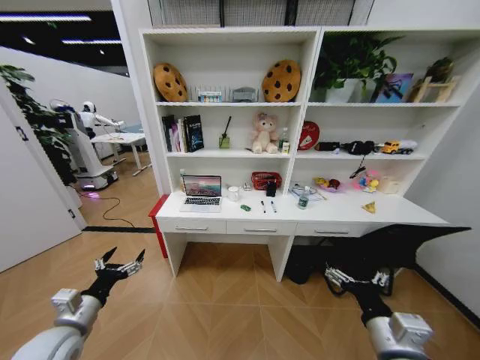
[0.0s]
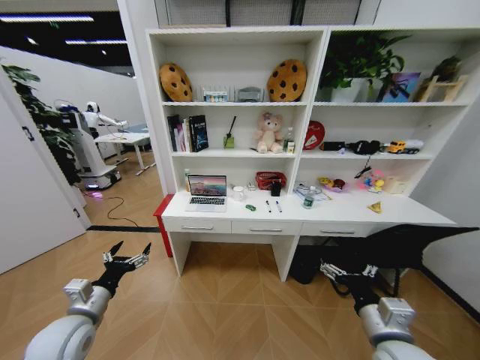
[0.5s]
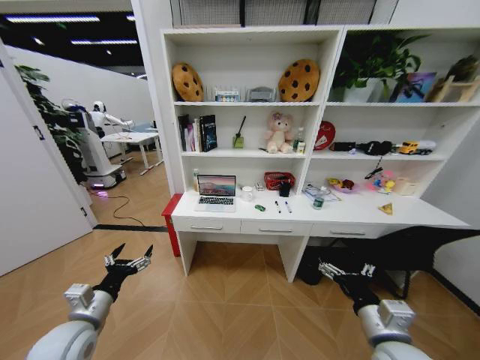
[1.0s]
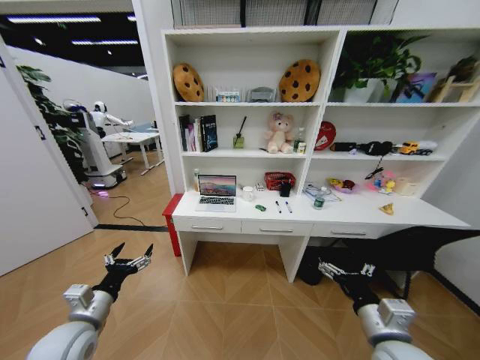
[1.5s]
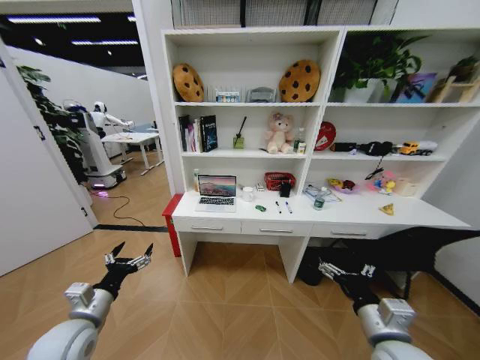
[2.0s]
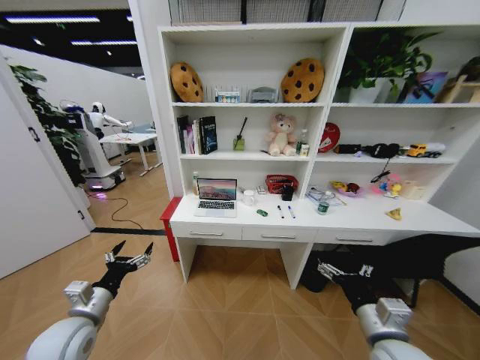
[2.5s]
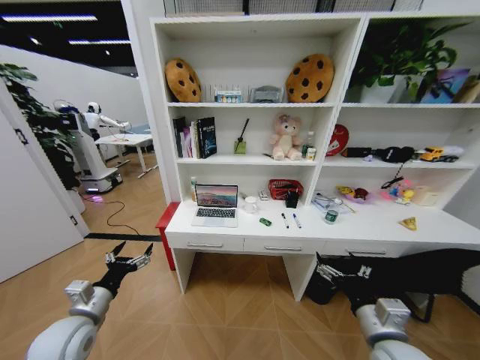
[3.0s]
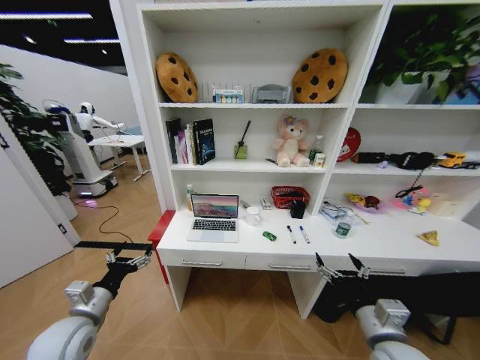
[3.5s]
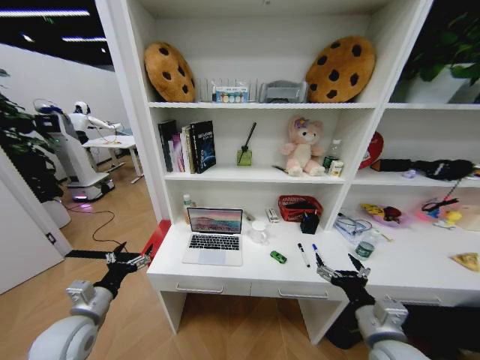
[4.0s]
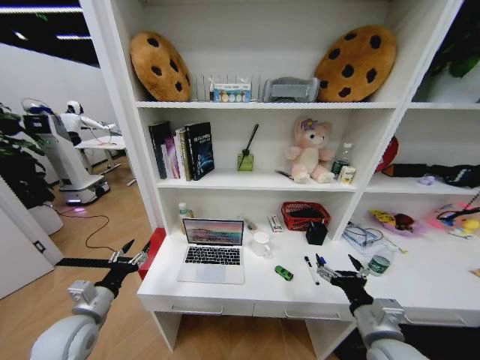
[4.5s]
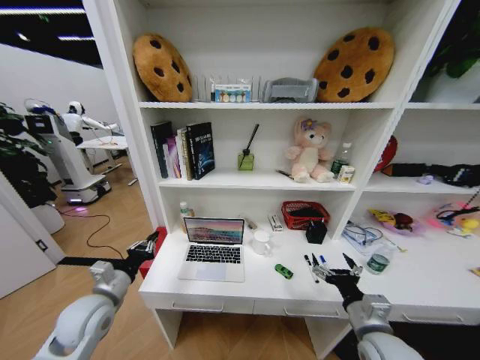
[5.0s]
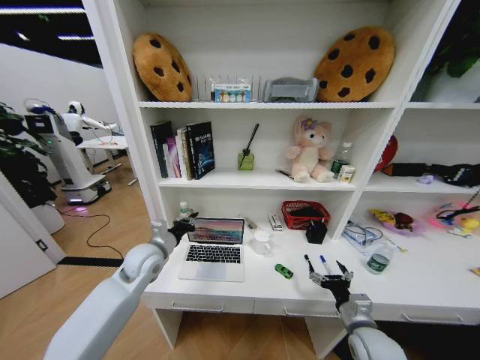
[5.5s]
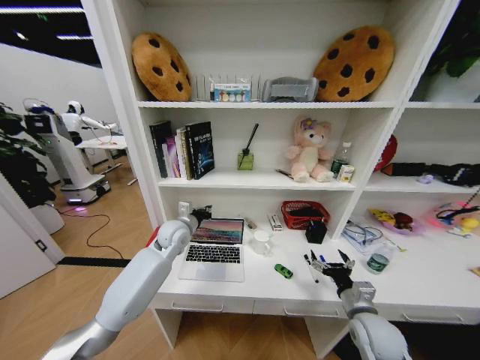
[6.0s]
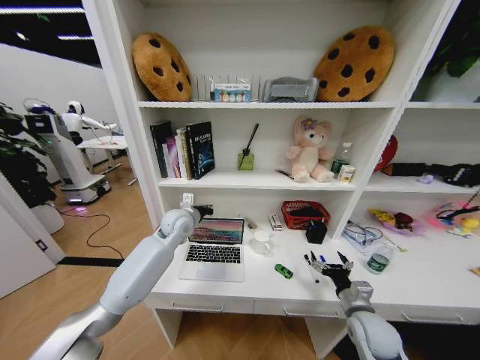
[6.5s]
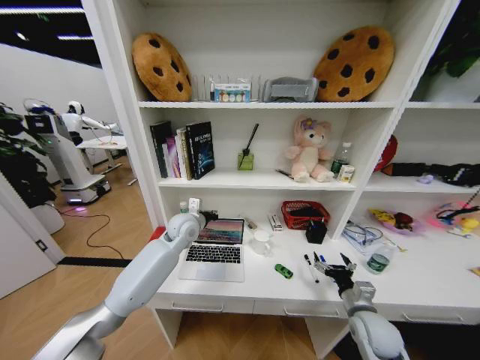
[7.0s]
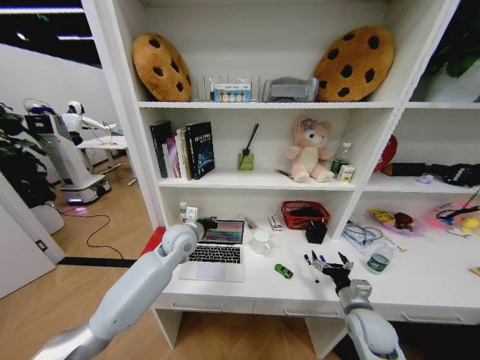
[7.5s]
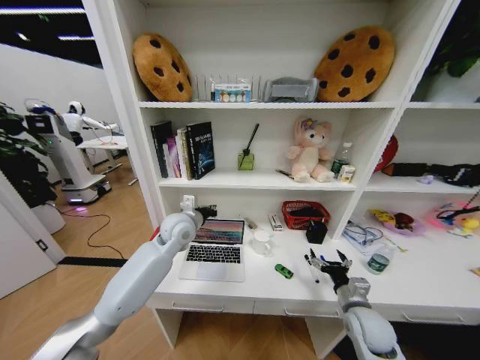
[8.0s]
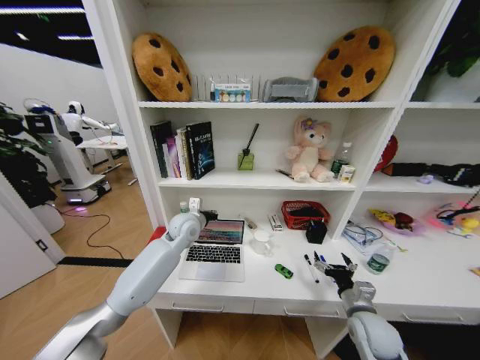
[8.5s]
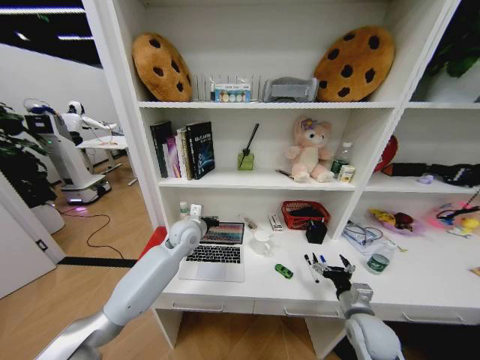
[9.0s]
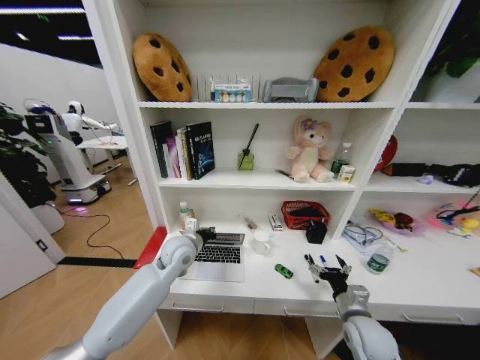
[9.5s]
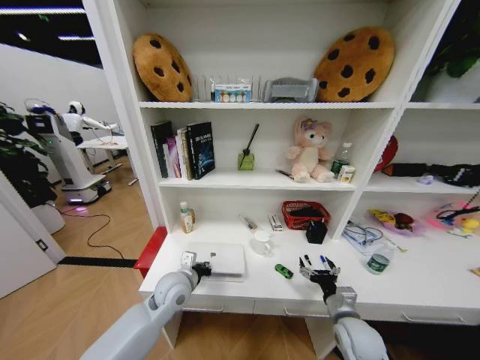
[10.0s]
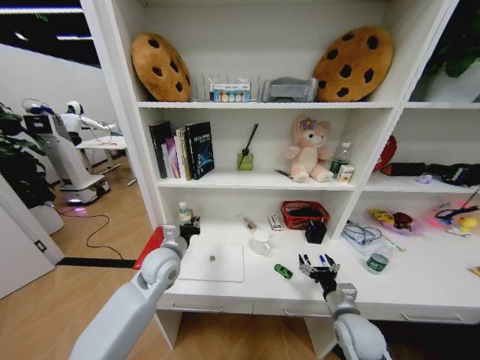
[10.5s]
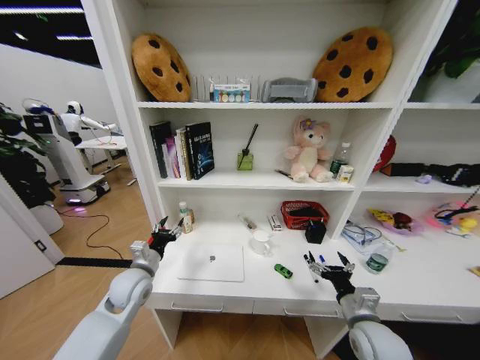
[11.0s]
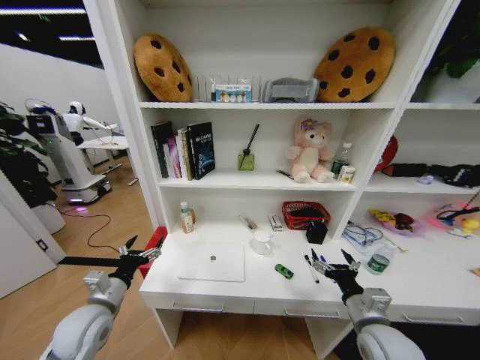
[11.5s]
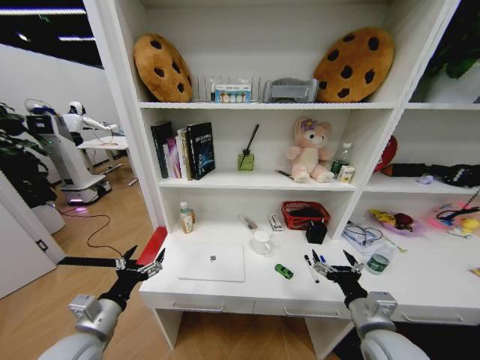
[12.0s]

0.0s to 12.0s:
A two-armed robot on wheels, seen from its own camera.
Task of the whole recording: Organize the objects on the table.
4.0s to 6.0s: The left gripper travels forward and to the right by some 30 cm, and closes up; the right gripper is displaced downward and forward by approximately 10 cm.
6.0s to 8.0s: The left gripper moves approximately 5 cm.
8.0s to 10.0s: The left gripper is displaced backward and downward by roughly 15 cm.
10.0s to 12.0s: The right gripper travels upward by about 10 cm. The left gripper is displaced to the left and backward by about 20 cm, and opens its fingers.

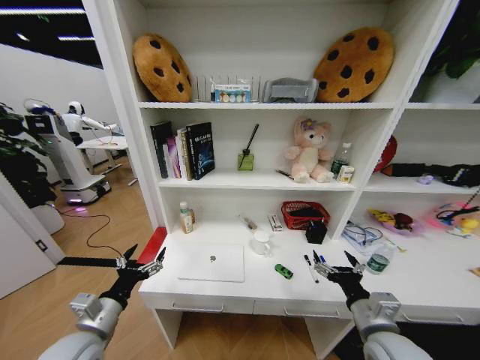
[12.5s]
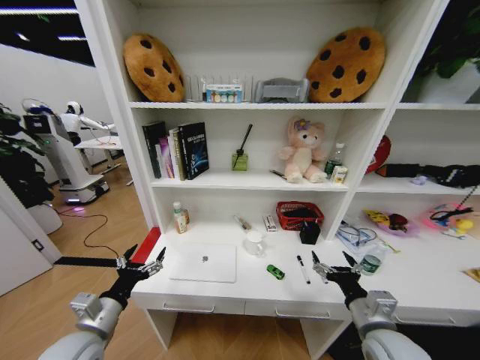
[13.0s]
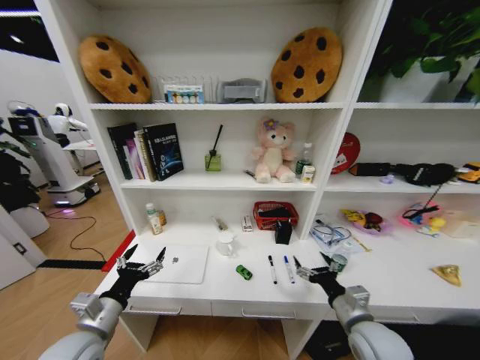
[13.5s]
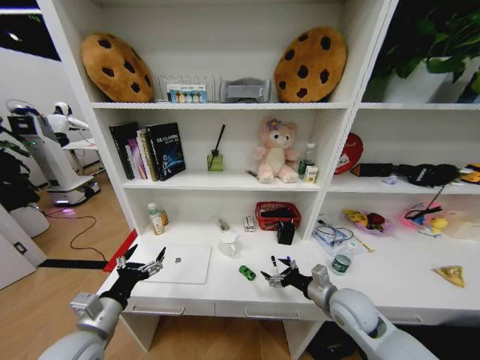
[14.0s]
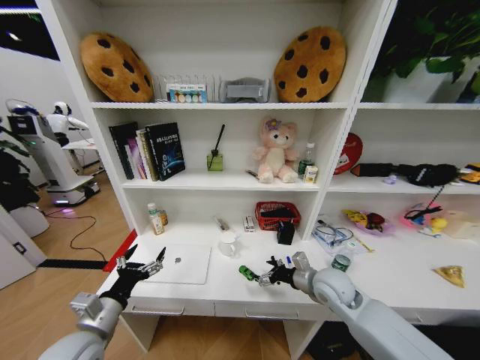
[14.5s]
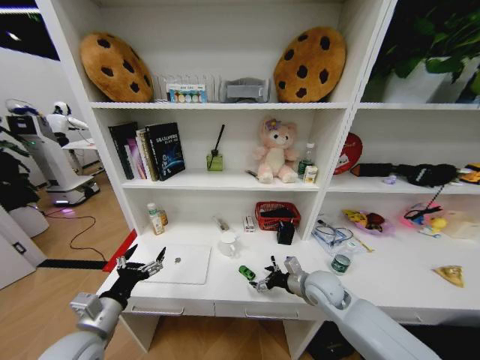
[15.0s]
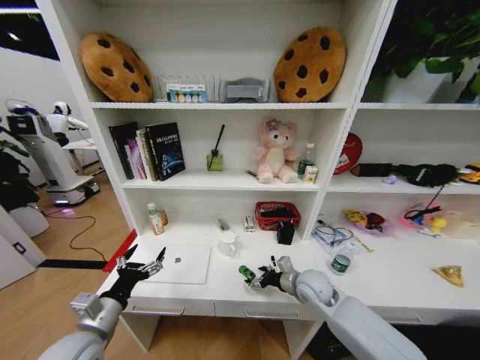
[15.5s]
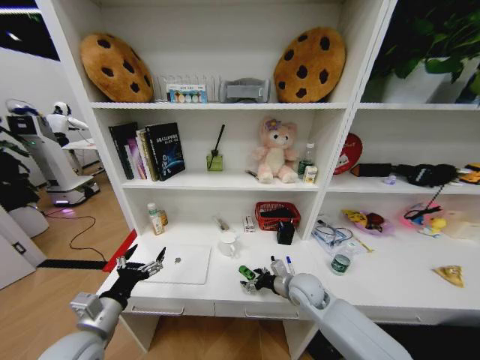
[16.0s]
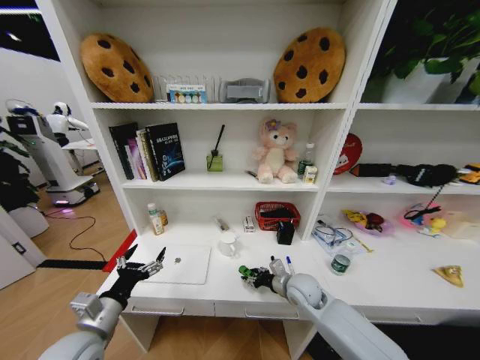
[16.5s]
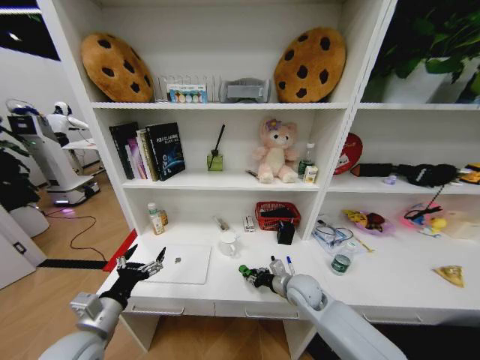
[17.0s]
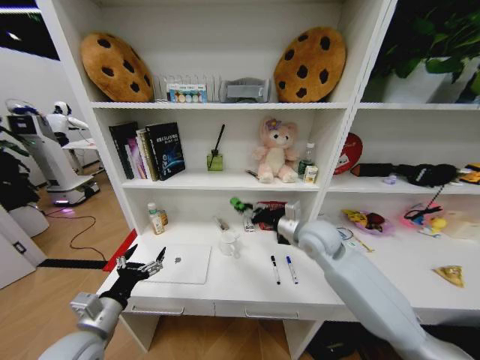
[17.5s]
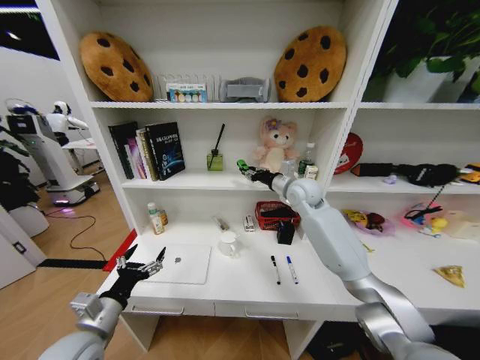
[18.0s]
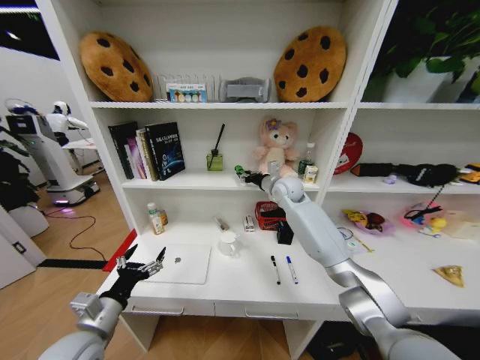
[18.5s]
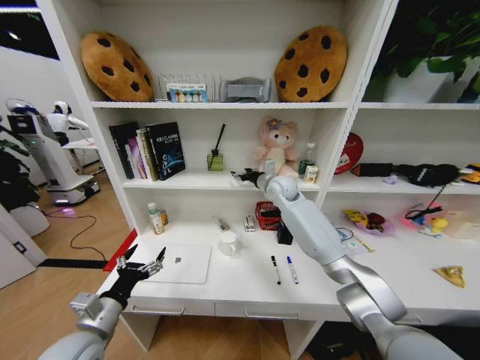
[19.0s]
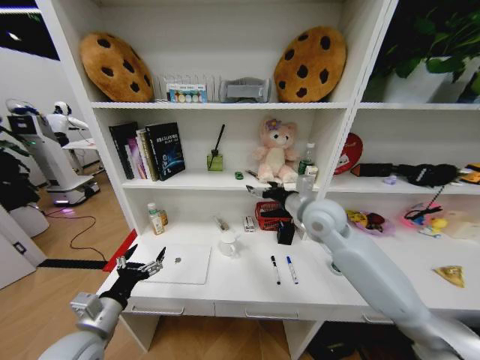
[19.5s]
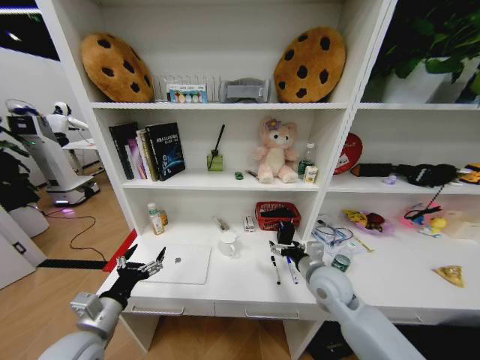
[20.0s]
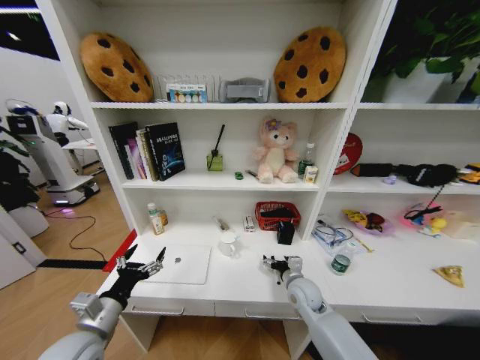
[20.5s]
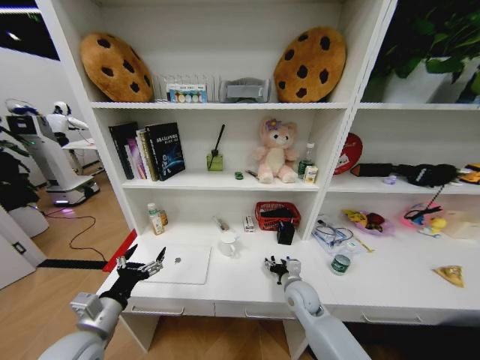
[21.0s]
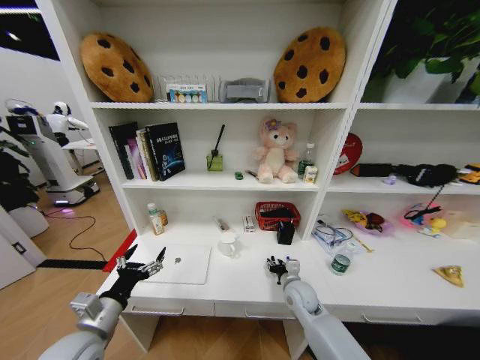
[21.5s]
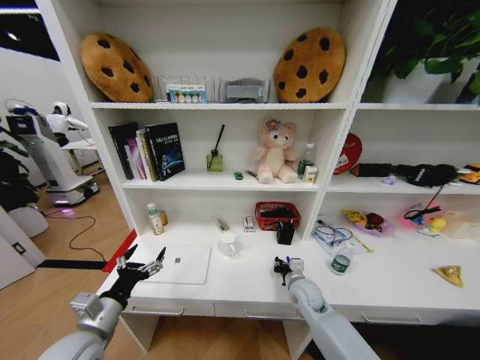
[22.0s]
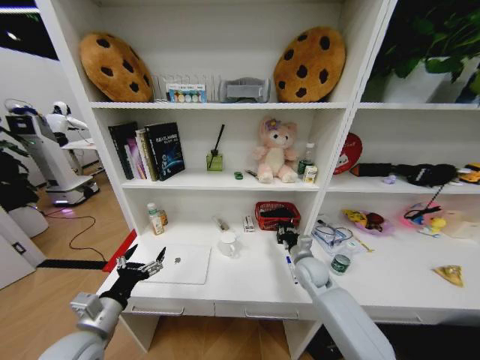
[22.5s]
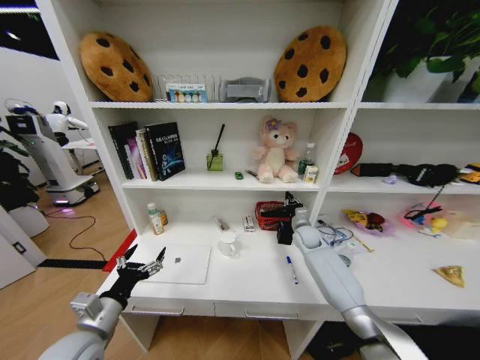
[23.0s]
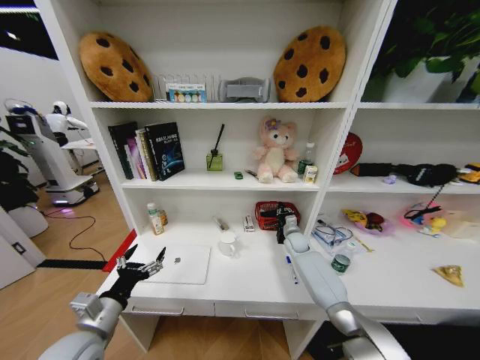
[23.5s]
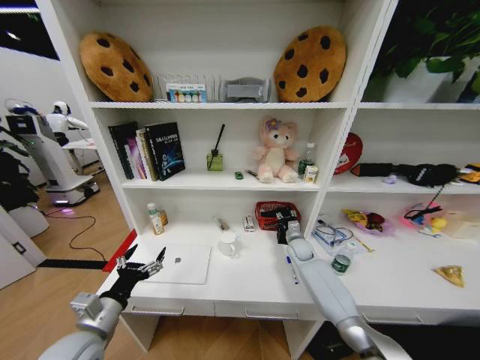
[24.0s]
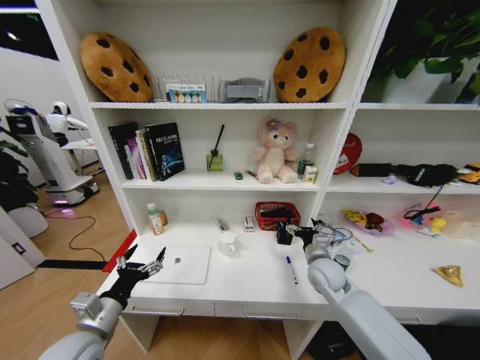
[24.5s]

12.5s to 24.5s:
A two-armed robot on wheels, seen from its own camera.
Task of the whole recording: Organize the objects on the table.
12.5s to 14.5s: The right gripper heads forward, covering about 15 cm.
14.5s to 16.5s: The right gripper is displaced downward and to the left by about 10 cm, and closes up.
16.5s to 18.5s: The right gripper goes approximately 30 cm forward and upward.
18.5s to 20.5s: The right gripper shifts approximately 35 cm downward and backward, and opens.
20.5s to 22.5s: The right gripper moves some 5 cm, and closes up.
22.5s to 24.5s: The right gripper moves about 15 cm forward and comes back, and opens.

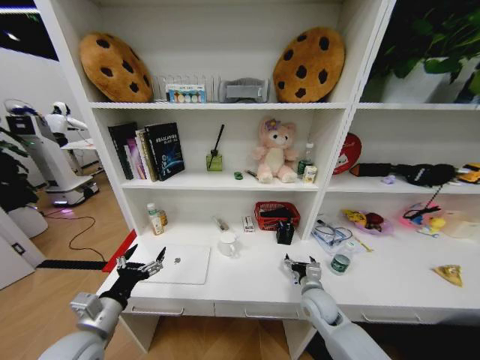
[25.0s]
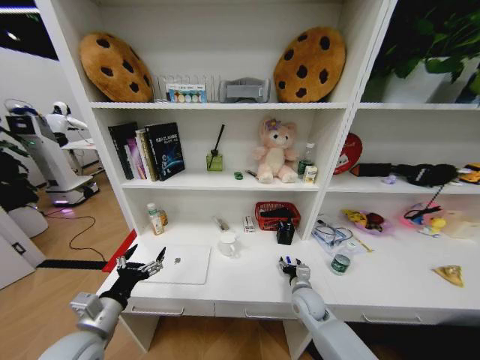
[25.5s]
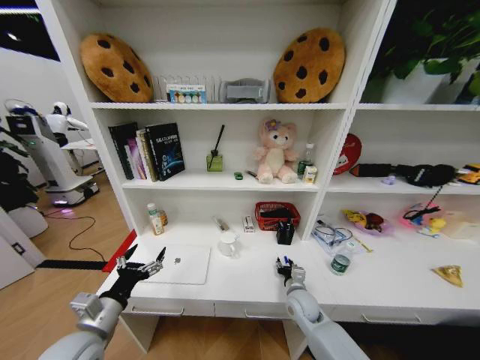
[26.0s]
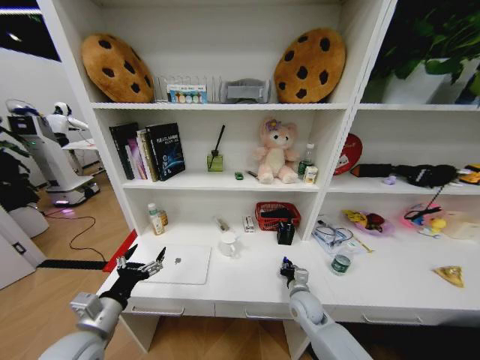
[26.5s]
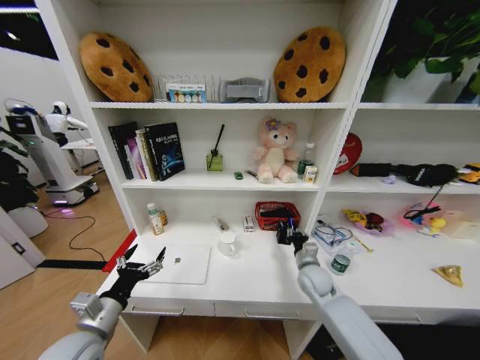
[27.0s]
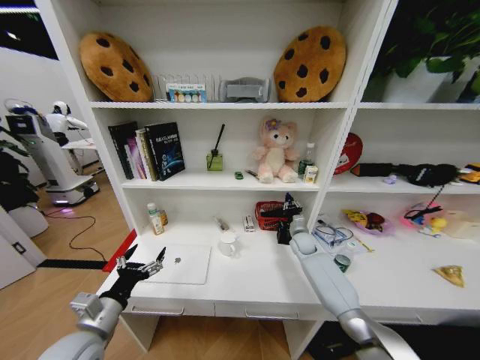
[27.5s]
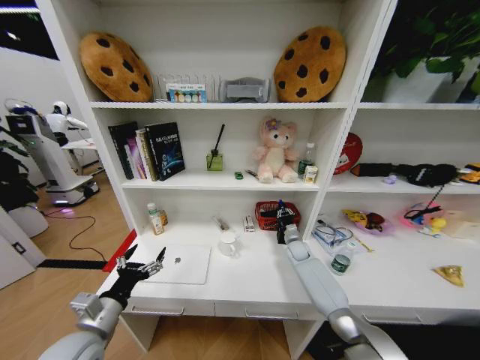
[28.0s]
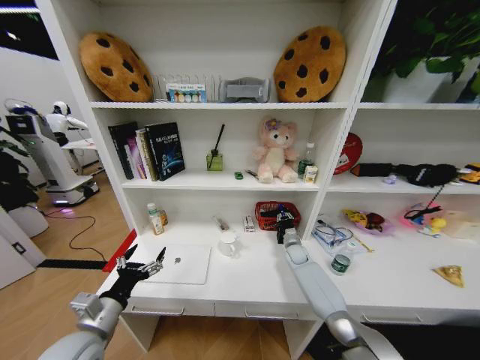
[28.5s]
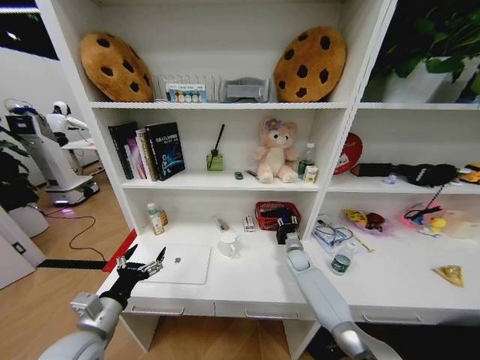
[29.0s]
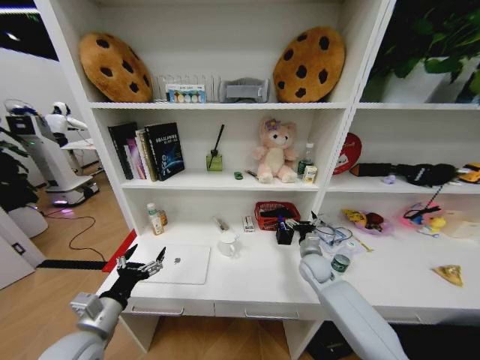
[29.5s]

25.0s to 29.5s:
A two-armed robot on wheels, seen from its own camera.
Task of the whole recording: Organize the objects on the table.
25.0s to 27.0s: The right gripper heads forward, covering roughly 10 cm, and closes.
27.0s to 29.5s: The right gripper reaches some 15 cm forward, then returns, and opens up.
